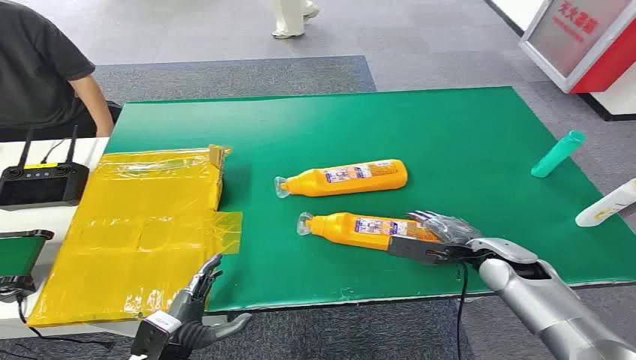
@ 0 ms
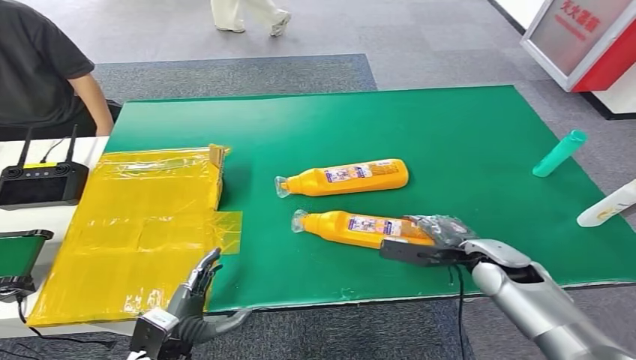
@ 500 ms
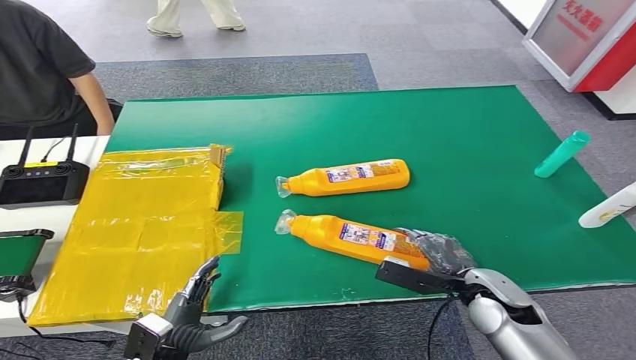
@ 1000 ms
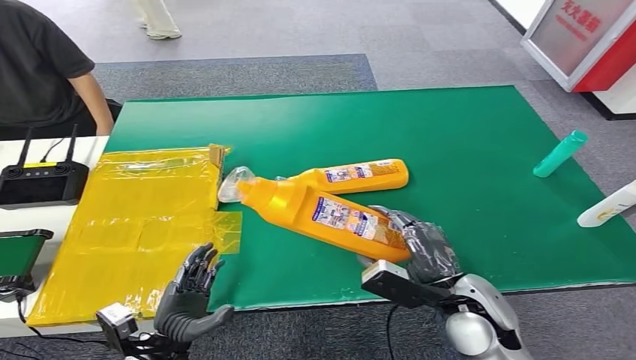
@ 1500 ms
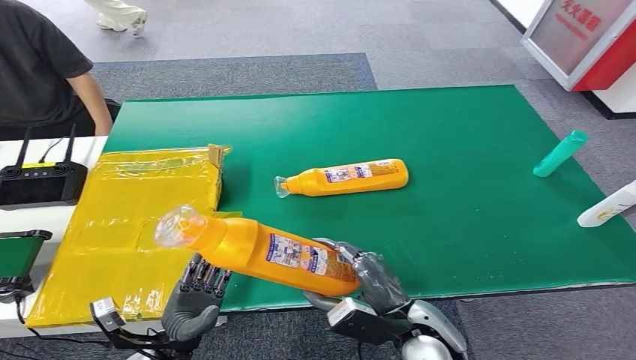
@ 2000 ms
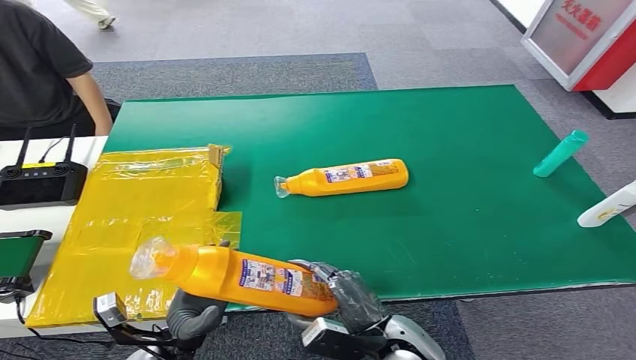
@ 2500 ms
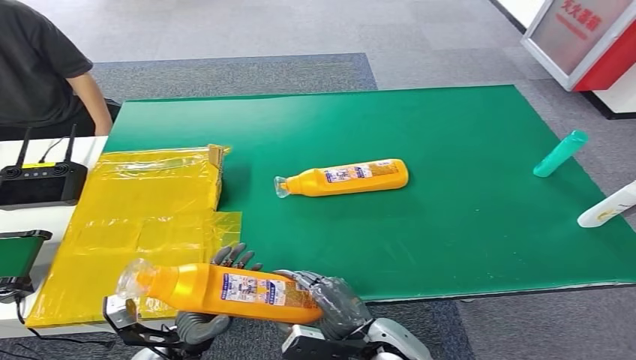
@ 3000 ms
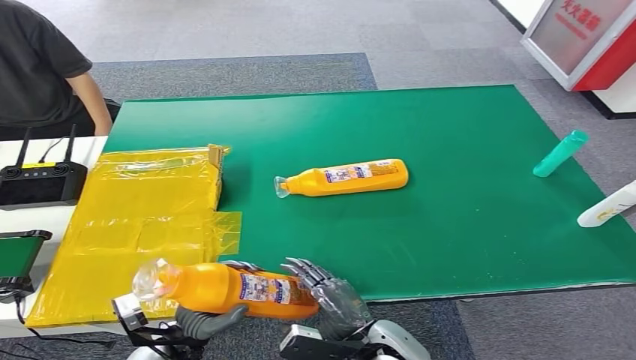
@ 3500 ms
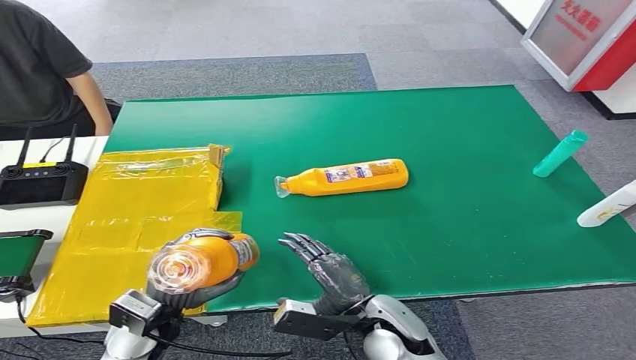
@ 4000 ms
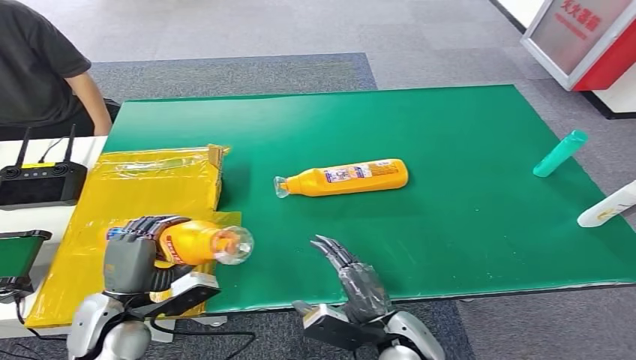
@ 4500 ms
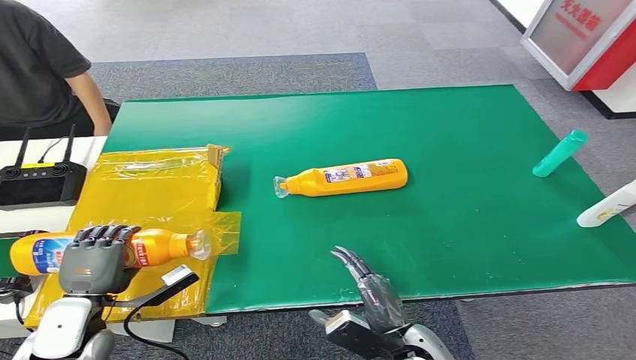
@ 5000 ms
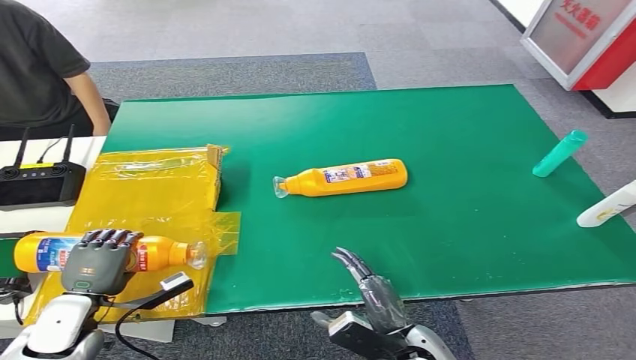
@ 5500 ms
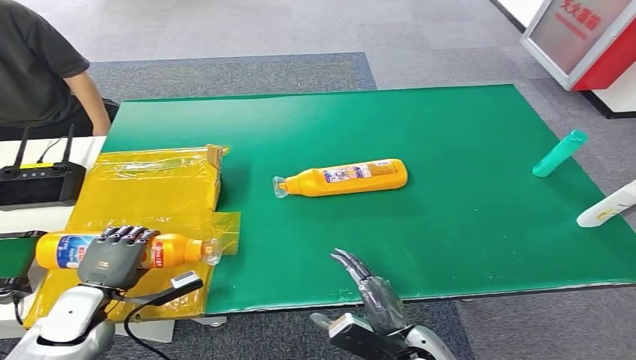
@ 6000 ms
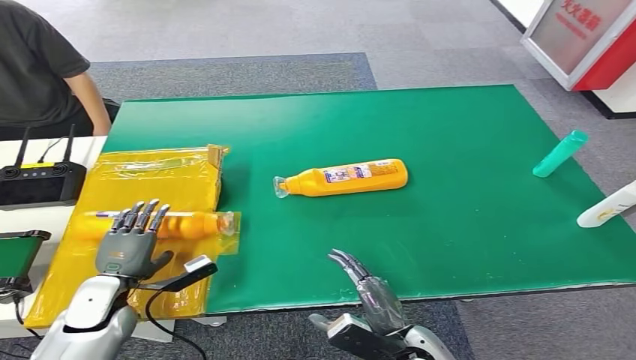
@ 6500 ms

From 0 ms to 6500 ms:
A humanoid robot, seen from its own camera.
Step, from 0 ms to 3500 ms: Pick up the bottle from the table.
Step, from 4000 ms to 6500 ms: Turn the bottle to the front side.
From 2000 ms to 4500 ms: The left hand heads upward and forward, covering approximately 10 cm.
From 4500 ms to 6500 ms: The left hand travels to the left and downward by roughly 10 cm.
